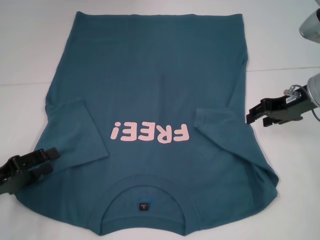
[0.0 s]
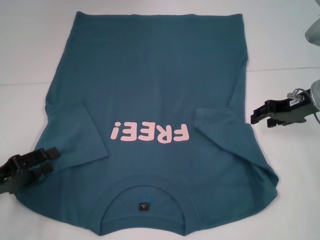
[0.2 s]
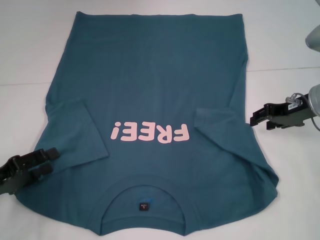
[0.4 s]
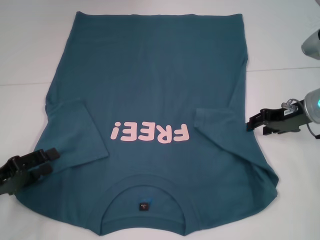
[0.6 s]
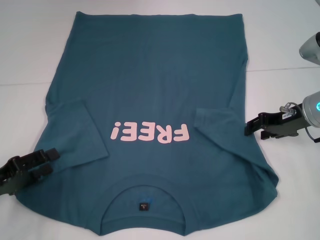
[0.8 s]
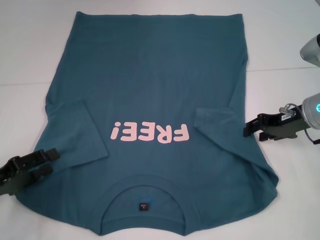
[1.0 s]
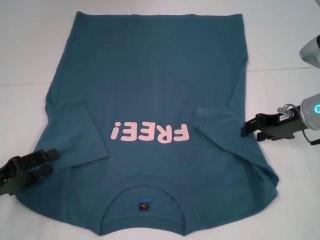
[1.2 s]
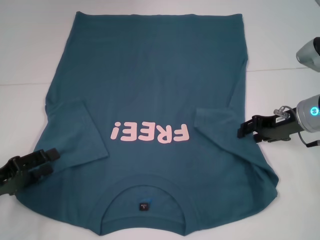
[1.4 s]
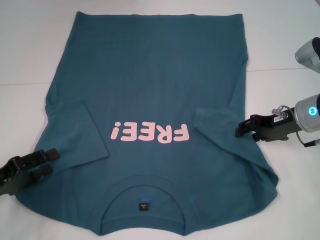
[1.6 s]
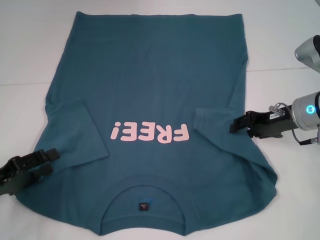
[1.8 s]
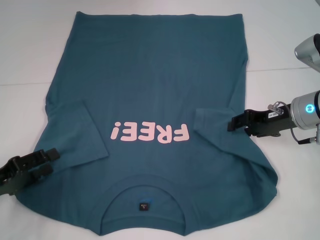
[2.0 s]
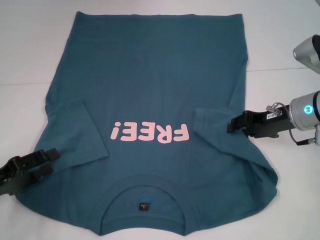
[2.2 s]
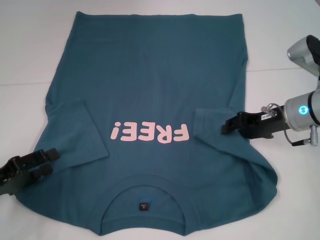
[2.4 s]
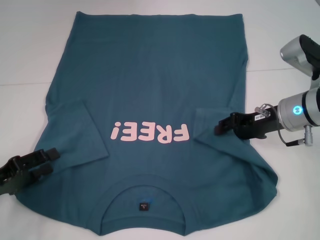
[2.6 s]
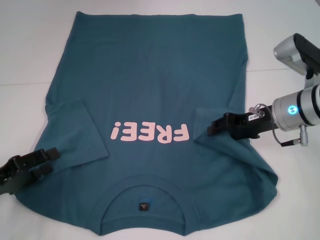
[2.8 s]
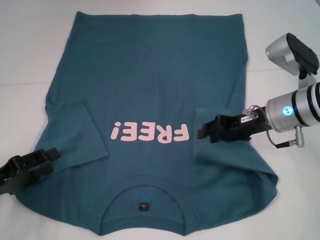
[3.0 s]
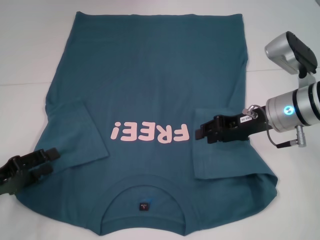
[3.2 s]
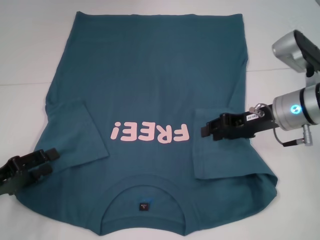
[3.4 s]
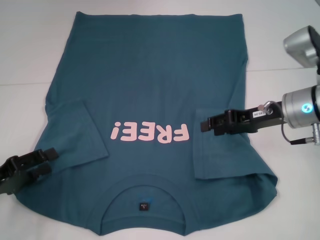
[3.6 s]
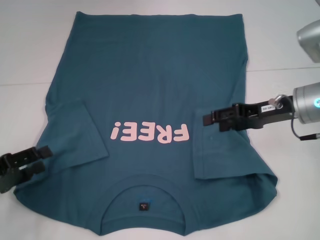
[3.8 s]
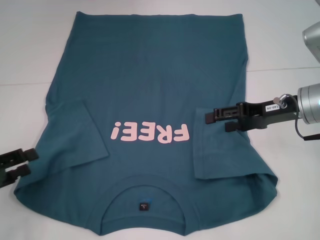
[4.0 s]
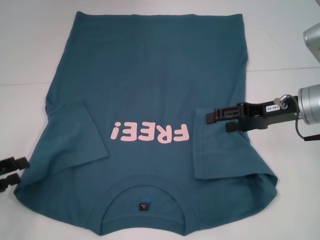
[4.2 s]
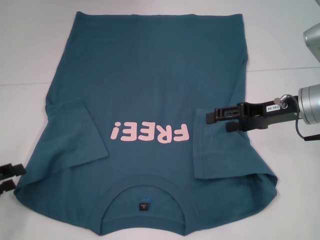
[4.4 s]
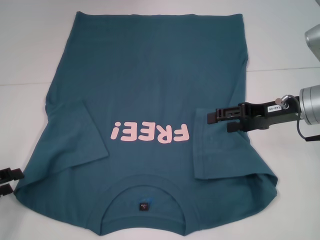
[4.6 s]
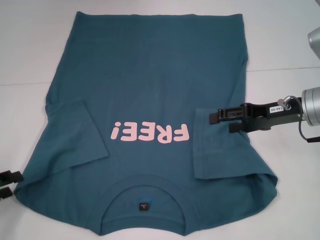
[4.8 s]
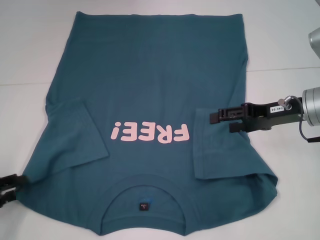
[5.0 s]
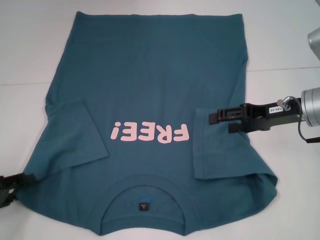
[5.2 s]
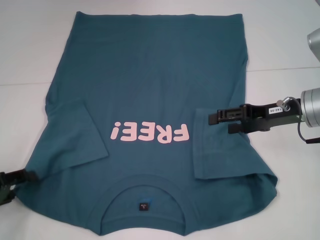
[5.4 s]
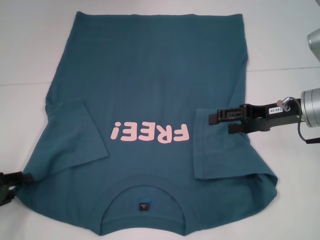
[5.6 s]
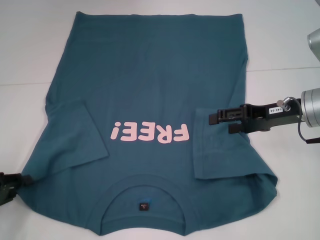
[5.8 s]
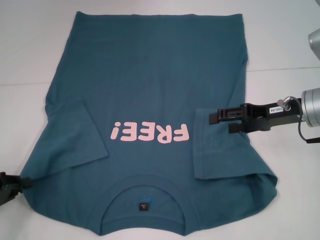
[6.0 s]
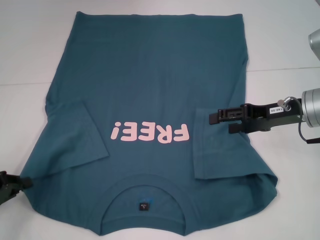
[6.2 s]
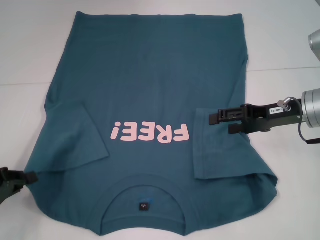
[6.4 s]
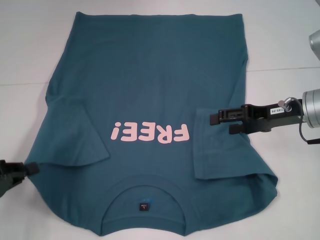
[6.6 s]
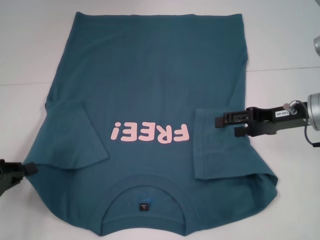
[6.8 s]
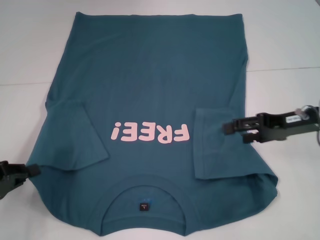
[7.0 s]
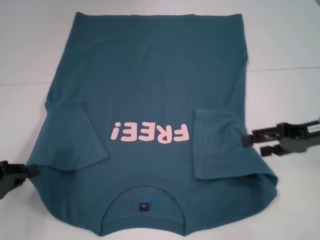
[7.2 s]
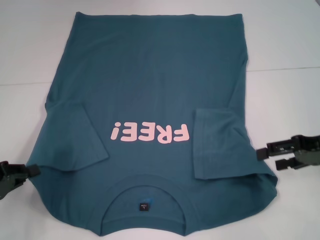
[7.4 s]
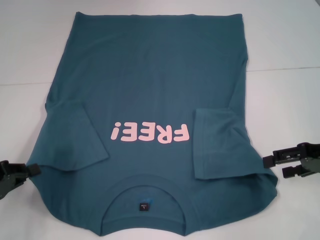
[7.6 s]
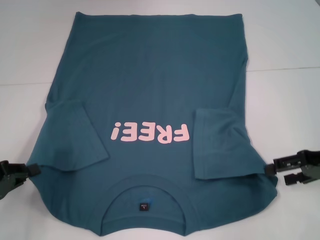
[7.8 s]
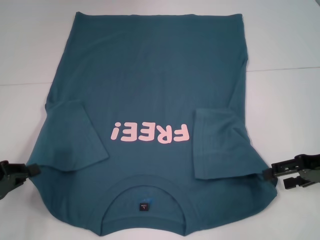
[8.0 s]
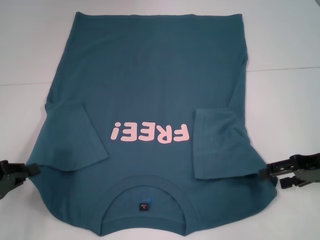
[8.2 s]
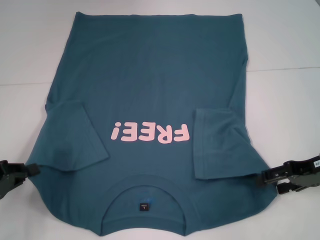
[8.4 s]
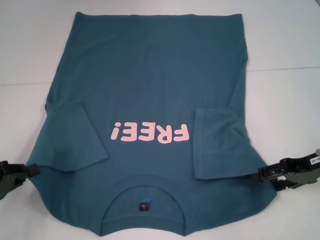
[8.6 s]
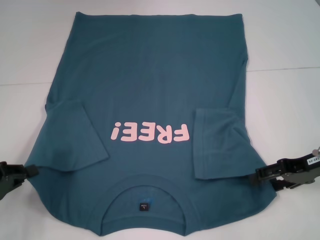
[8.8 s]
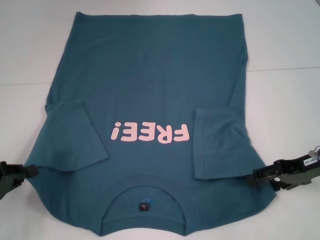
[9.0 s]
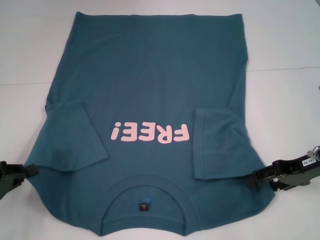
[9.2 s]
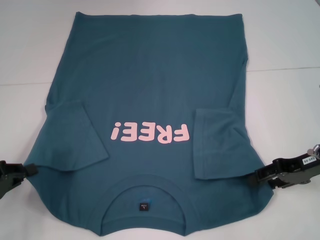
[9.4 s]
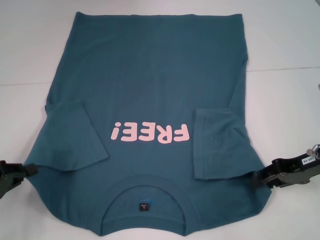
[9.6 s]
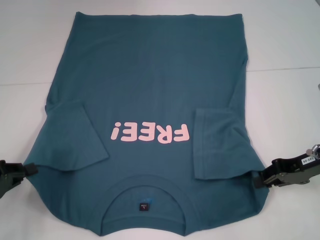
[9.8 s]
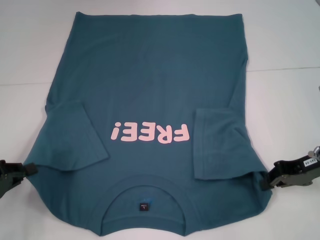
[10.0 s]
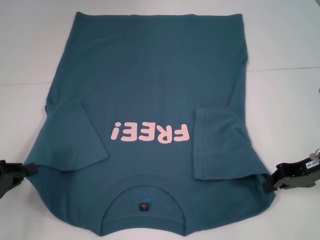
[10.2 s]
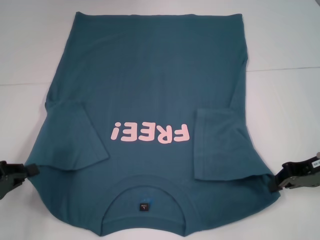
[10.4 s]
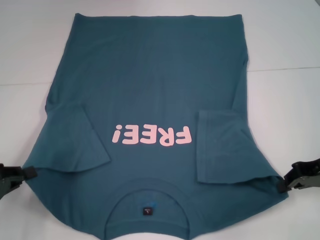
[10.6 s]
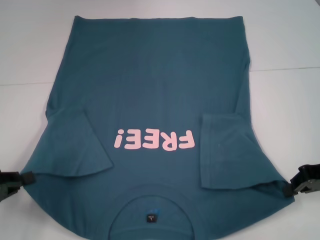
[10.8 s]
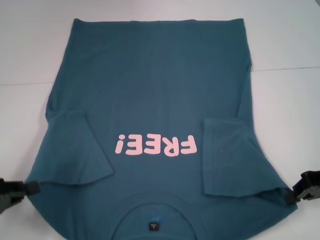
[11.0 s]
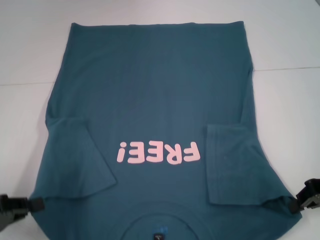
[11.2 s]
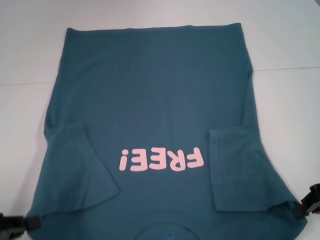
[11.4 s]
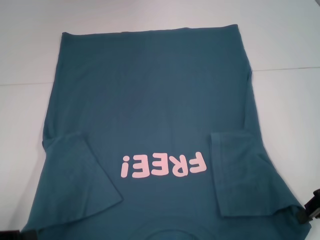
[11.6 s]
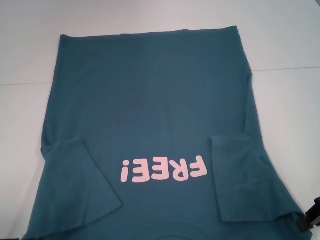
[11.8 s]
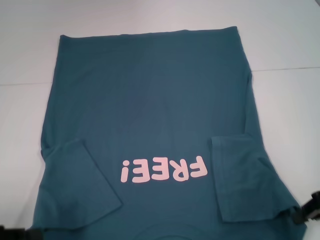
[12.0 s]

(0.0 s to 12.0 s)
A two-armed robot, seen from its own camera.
Step, 0.0 s - 3.0 s: Fold the bottom right sleeve to the right.
Step, 3.2 s - 6.2 s: Grab the bottom left corner with your left hand.
Step, 6.4 s - 10.0 s: Grab the bottom right corner with your right hand.
0.0 s - 1.6 s: The grippers stay close to where they were, moving slightly.
1.6 s - 3.0 s: There are only small adjustments of the grippers.
3.0 s - 4.4 s: The right gripper opens up.
4.4 s - 6.0 s: There are only small adjustments of the grippers.
6.0 s - 7.6 s: The right gripper moves to the right and backward, about 10 cm.
7.6 s - 9.0 s: The grippers move only a little.
9.0 s - 10.4 s: The right gripper closes its fingers.
10.4 s - 12.0 s: The left gripper heads backward, covering roughly 5 cm. The right gripper moves approximately 5 cm.

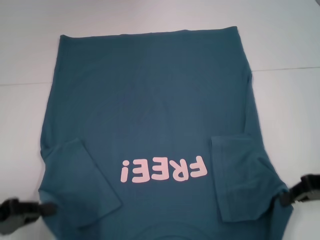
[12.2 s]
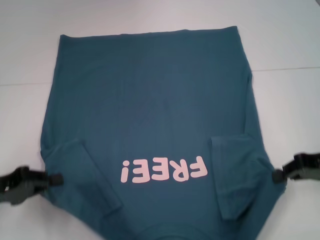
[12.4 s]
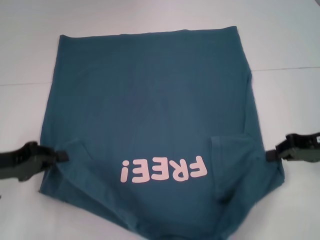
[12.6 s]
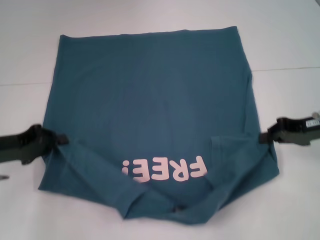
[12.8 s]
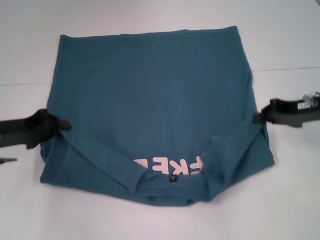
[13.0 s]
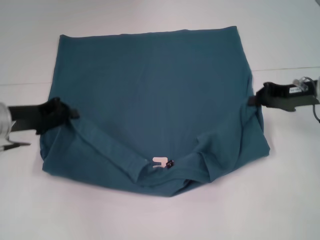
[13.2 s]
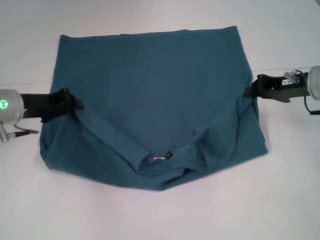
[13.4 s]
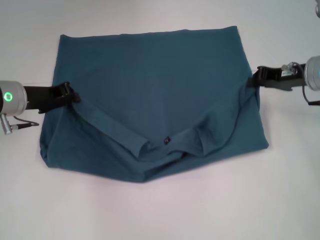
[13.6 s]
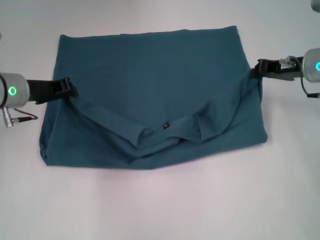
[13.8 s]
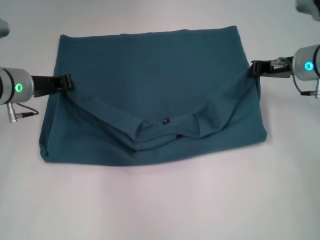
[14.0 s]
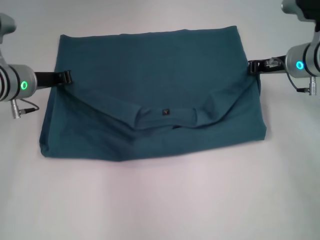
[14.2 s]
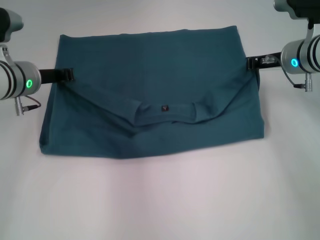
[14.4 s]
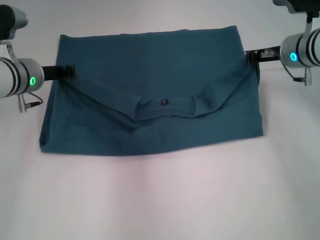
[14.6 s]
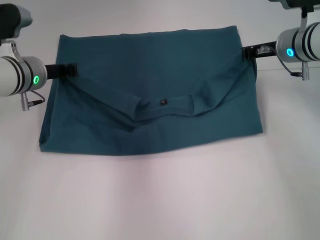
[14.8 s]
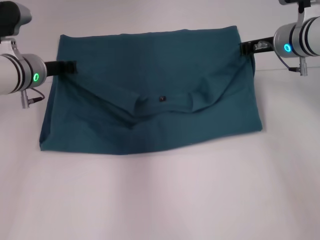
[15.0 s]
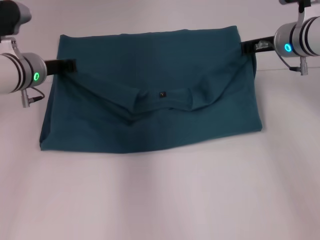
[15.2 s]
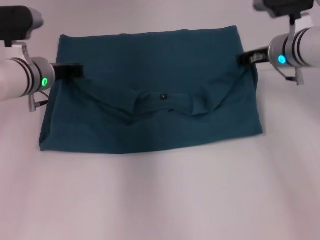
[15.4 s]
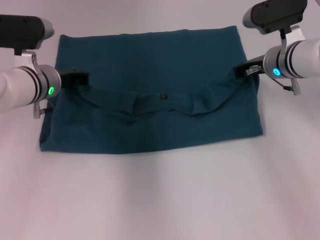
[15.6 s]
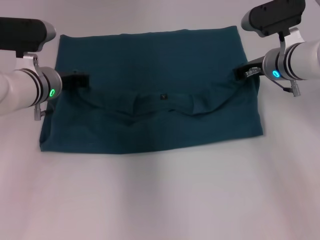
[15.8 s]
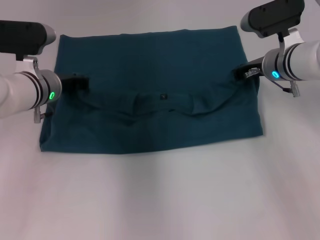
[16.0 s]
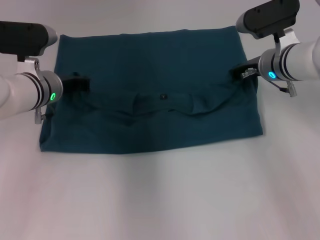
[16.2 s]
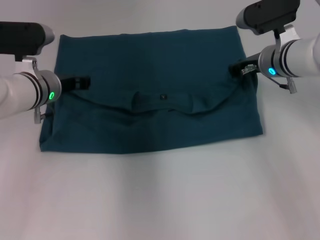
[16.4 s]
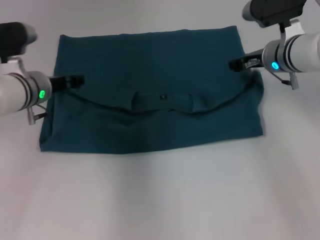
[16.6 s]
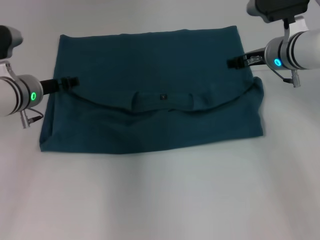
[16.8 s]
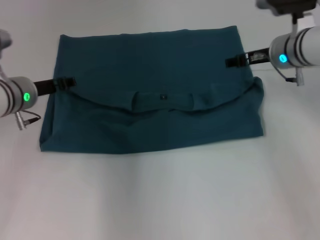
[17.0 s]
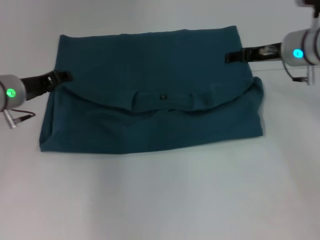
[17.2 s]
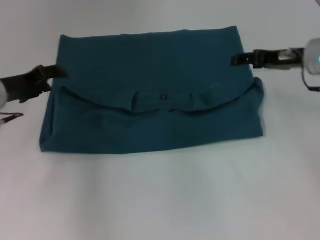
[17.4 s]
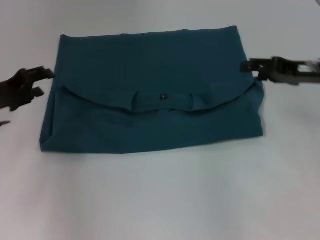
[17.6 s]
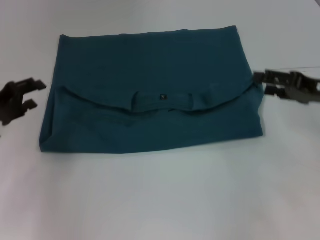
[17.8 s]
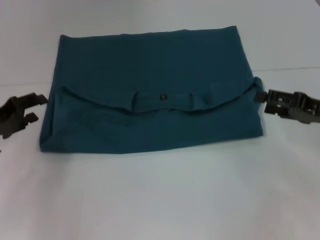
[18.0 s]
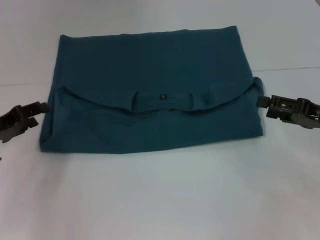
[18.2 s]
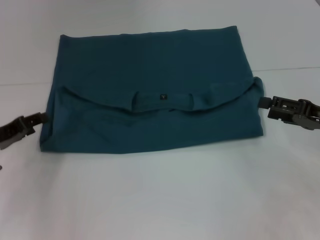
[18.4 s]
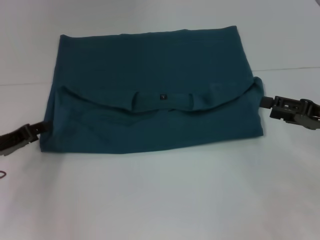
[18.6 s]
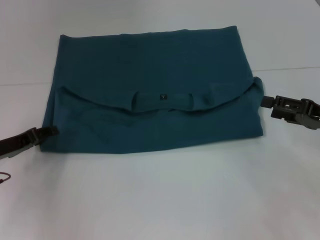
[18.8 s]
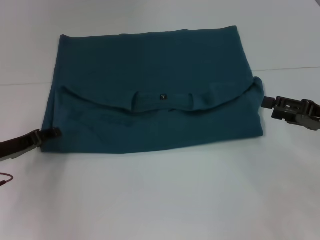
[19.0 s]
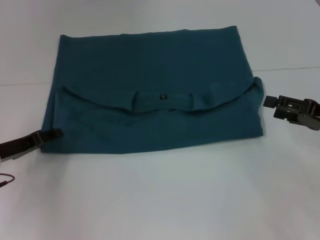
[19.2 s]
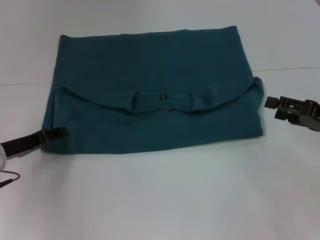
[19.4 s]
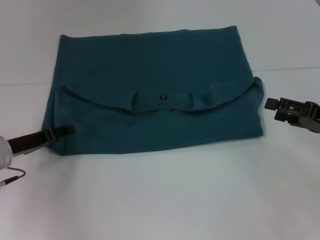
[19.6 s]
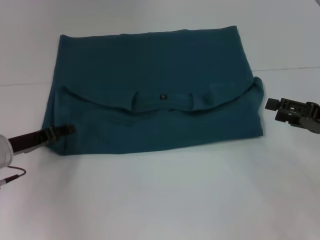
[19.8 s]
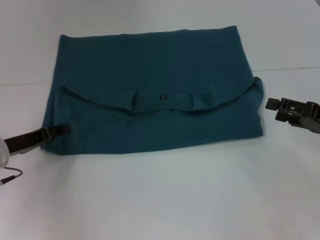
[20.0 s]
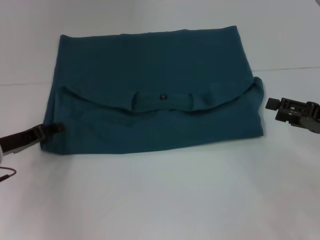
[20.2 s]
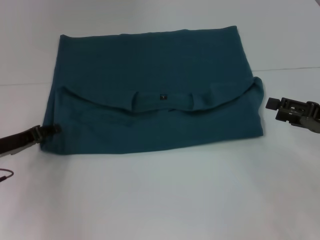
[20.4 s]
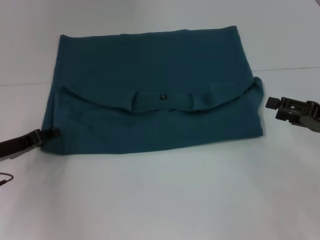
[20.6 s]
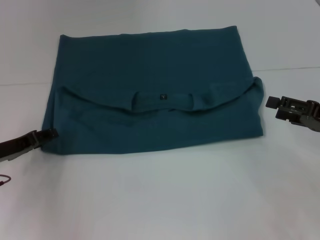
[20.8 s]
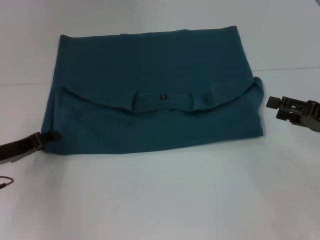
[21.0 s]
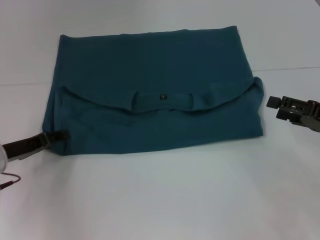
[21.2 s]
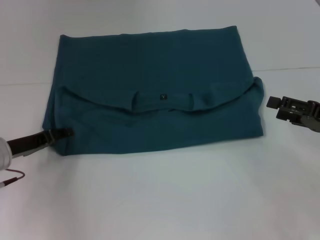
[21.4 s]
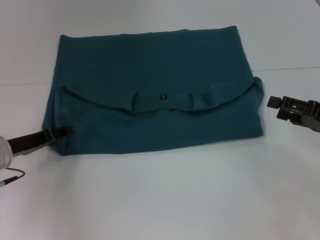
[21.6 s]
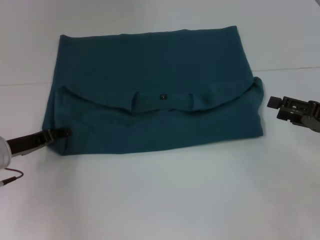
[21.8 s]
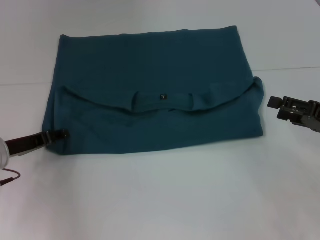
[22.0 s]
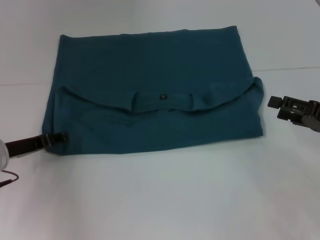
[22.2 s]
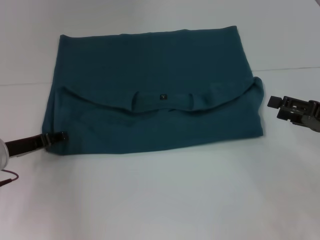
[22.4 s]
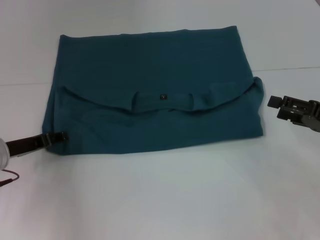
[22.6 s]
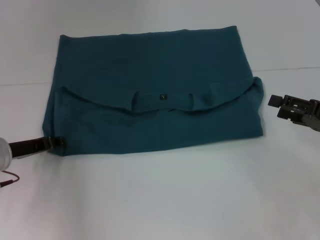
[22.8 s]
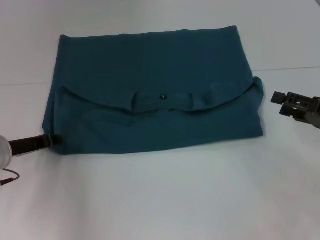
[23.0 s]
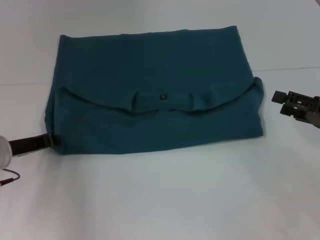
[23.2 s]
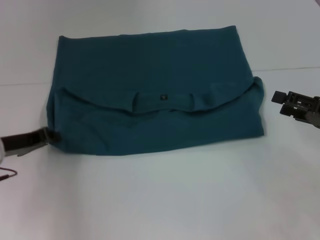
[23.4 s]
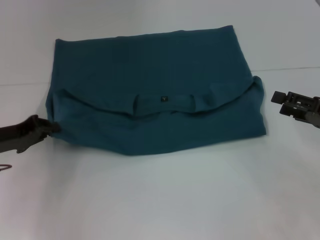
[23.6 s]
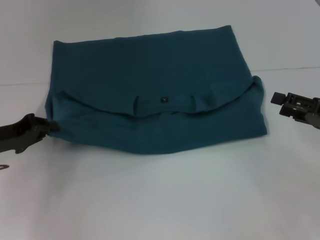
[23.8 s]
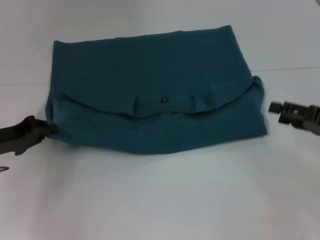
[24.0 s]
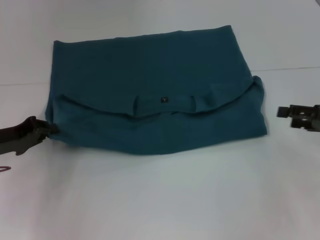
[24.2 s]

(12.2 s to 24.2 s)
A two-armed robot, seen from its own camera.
Step, 12.2 s - 16.6 s: Fold the clothes to the left.
Step, 12.2 s - 16.6 s: Fold the clothes to the right.
12.2 s - 13.8 s: The right gripper shifts roughly 15 cm forward and to the left. Meanwhile the left gripper travels forward and to the right by some 20 cm.
13.8 s - 15.2 s: The right gripper shifts by about 5 cm.
16.6 s - 18.2 s: The right gripper is displaced backward and to the right by approximately 20 cm, and opens; the left gripper moves to the left and backward, approximately 15 cm, and opens its fingers.
18.2 s - 21.2 s: The grippers stay close to where they were, moving slightly.
21.2 s - 22.6 s: The grippers stay close to where they were, moving slightly.
22.6 s - 24.2 s: The left gripper closes its fingers.
